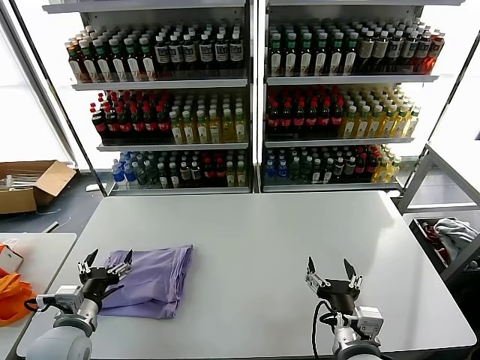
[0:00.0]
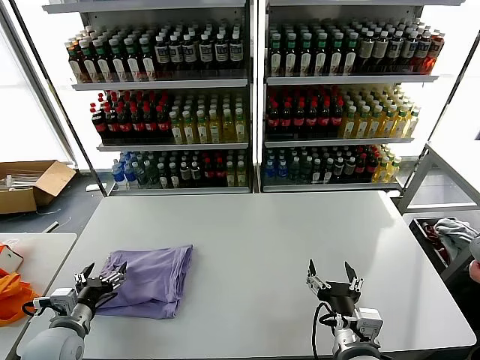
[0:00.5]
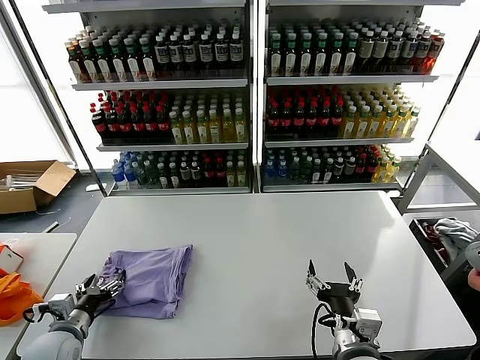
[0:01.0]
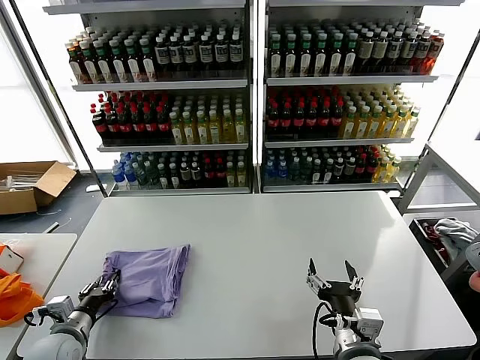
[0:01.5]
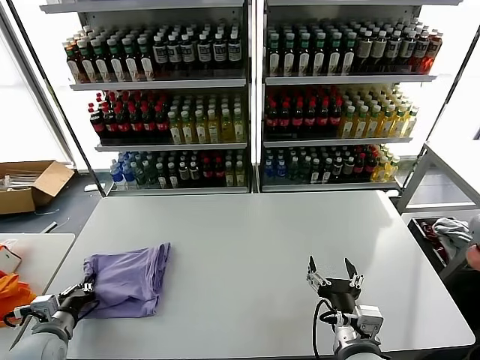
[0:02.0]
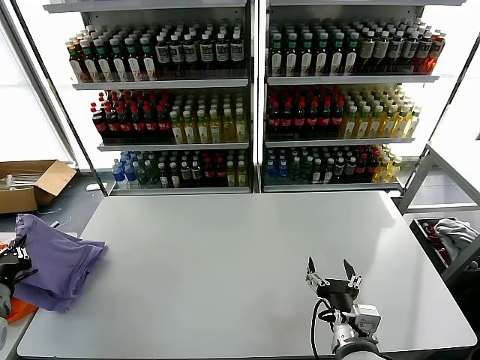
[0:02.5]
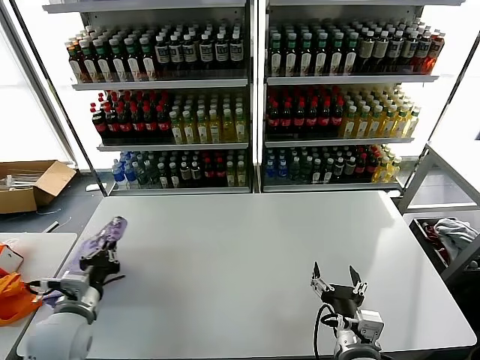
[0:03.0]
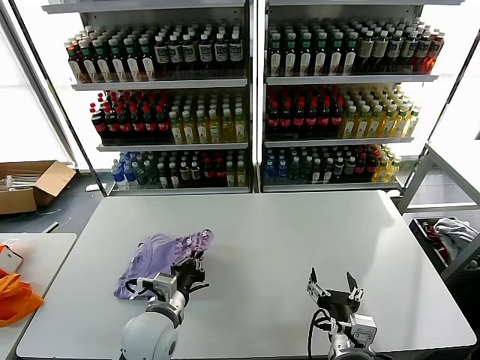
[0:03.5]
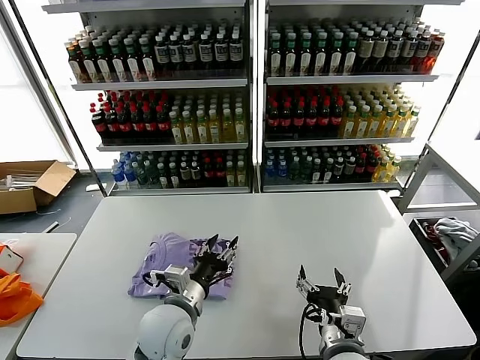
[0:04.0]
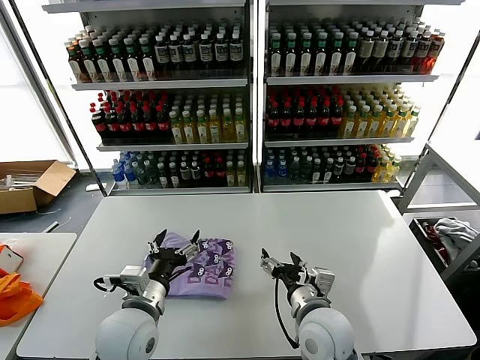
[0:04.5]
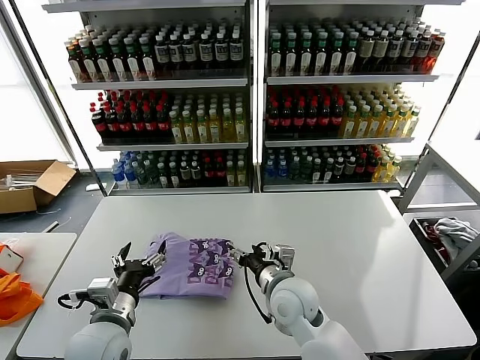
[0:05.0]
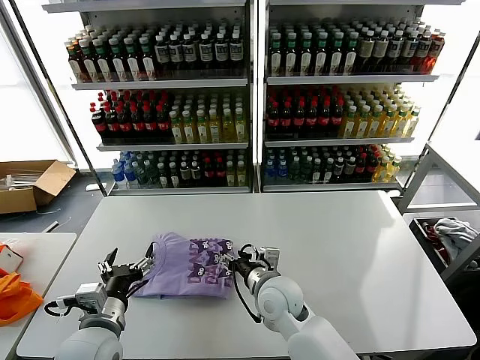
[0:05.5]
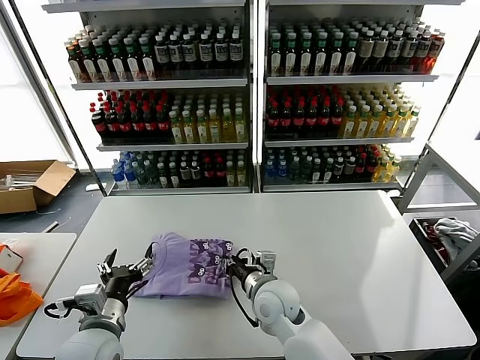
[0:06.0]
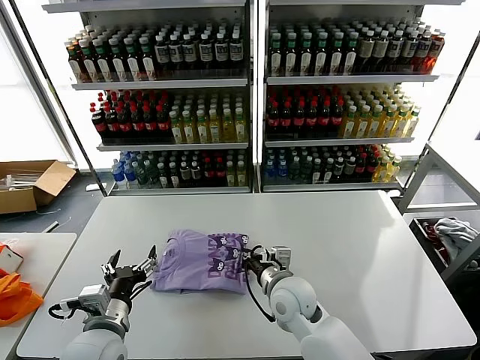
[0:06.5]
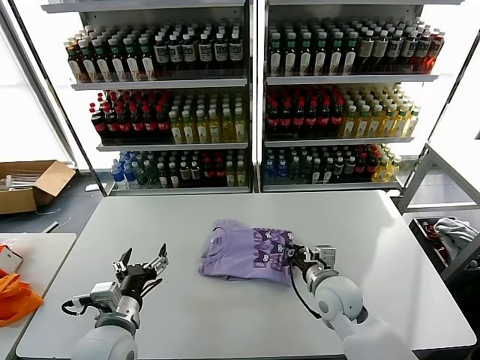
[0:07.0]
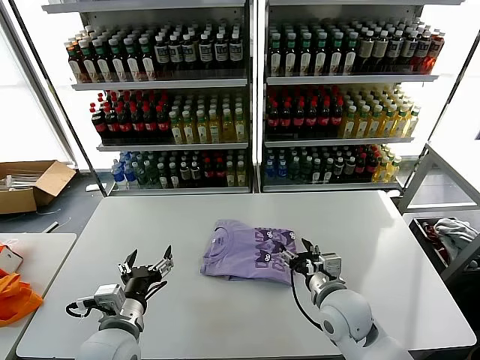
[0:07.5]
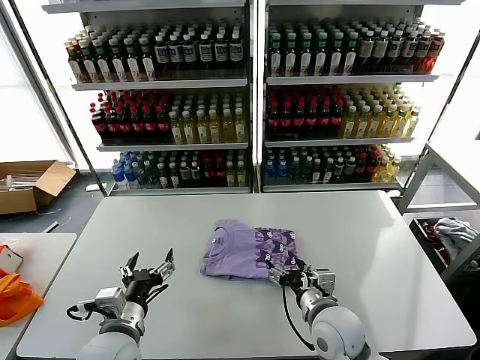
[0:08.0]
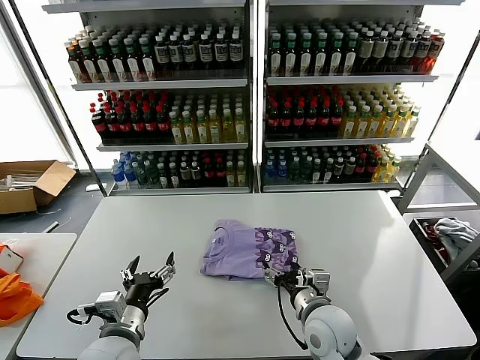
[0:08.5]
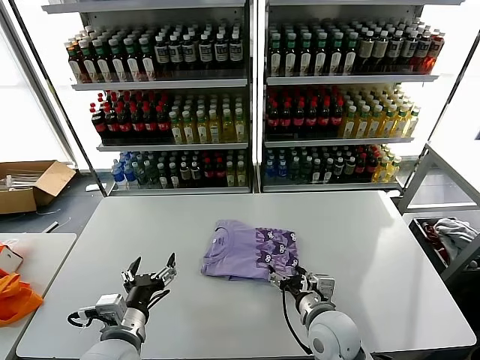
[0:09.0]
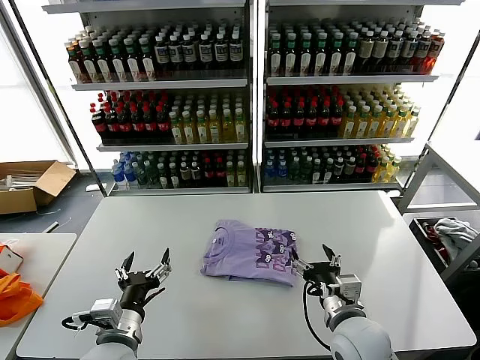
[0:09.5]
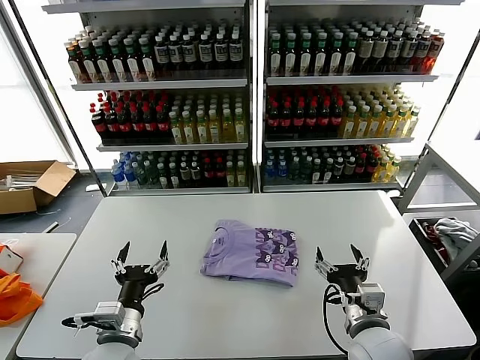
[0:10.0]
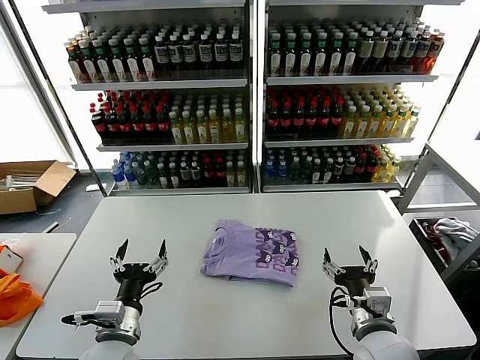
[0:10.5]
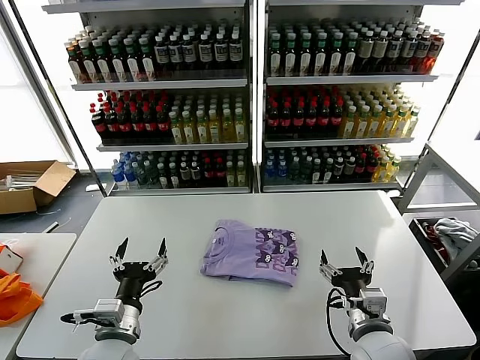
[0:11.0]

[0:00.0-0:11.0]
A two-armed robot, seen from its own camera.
Task of the whole recording: fold and organize the clothes.
Step, 0:00.0 to 0:03.5: Flip the folded clothes over with left gripper.
Step, 0:04.0 to 0:09.0: Drag the clothes to the center of the table.
0:00.0 to 0:02.0: The left gripper travels to the left and downward by some 10 cm, and closes up.
0:02.0 to 0:03.5: The left gripper heads to the right, covering some 20 cm.
0:03.5 to 0:05.5: The left gripper travels to the left by approximately 5 cm, and opens up. Meanwhile the right gripper goes approximately 20 cm forward and to the left.
0:05.5 to 0:07.5: The right gripper goes about 15 cm to the right, and closes and opens again.
0:07.5 to 0:09.0: The right gripper ends up some 5 cm from where it was.
0:09.0 to 0:11.0: The right gripper shifts approximately 10 cm to the right and backward.
